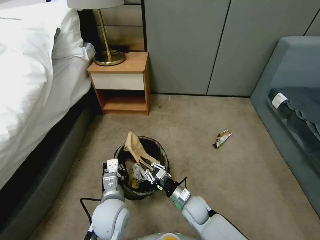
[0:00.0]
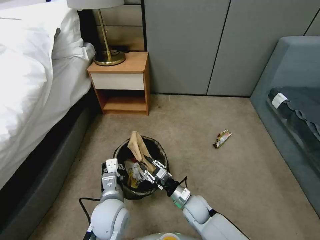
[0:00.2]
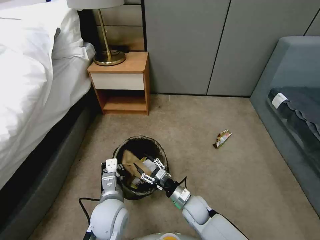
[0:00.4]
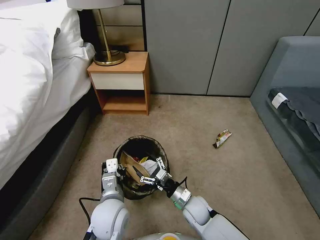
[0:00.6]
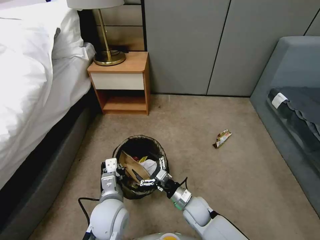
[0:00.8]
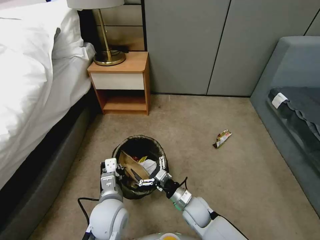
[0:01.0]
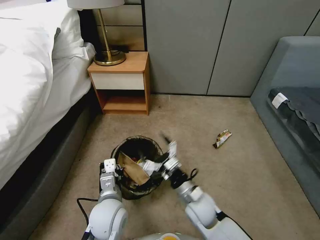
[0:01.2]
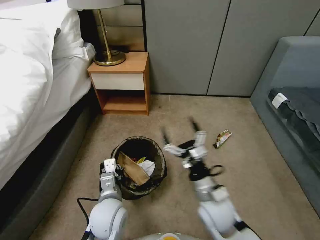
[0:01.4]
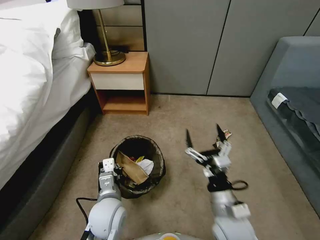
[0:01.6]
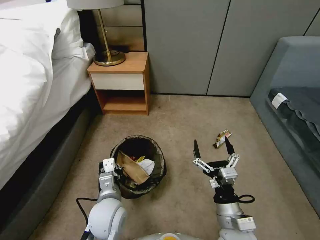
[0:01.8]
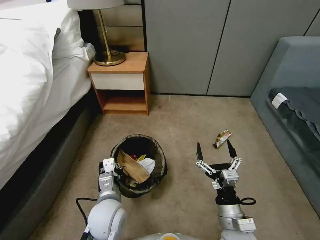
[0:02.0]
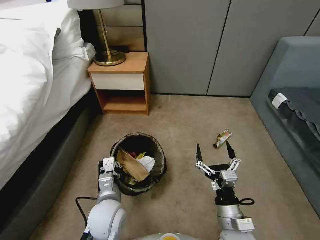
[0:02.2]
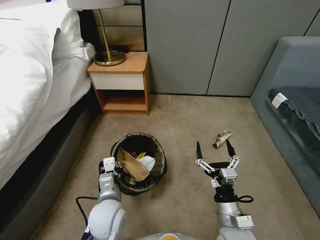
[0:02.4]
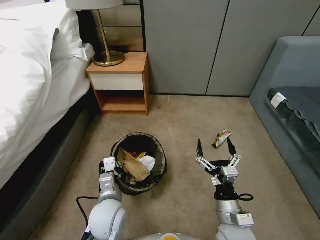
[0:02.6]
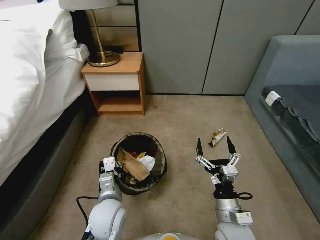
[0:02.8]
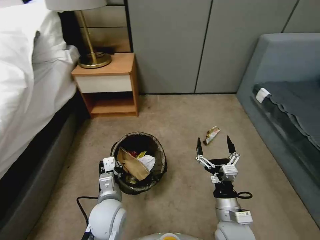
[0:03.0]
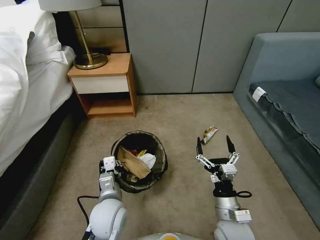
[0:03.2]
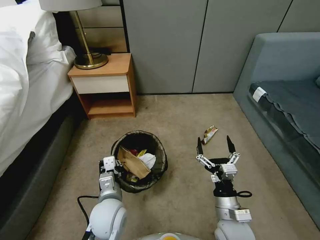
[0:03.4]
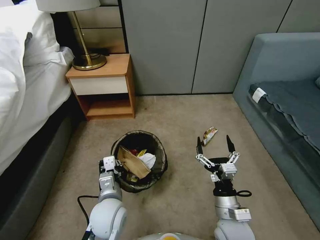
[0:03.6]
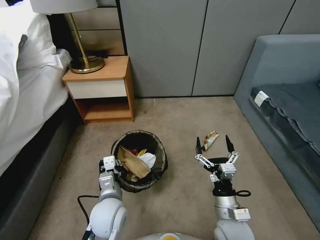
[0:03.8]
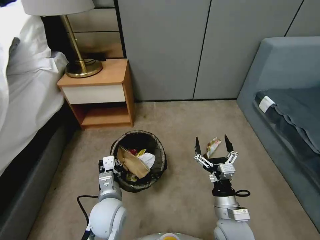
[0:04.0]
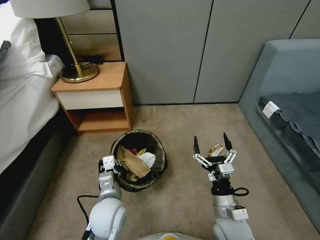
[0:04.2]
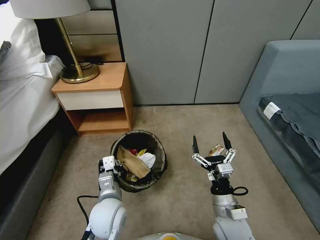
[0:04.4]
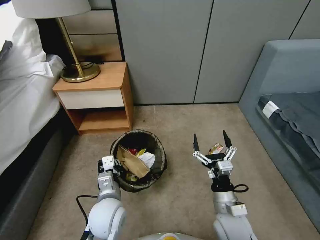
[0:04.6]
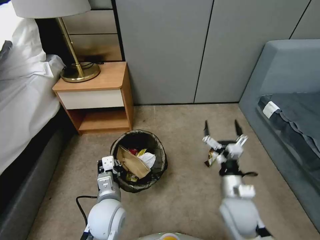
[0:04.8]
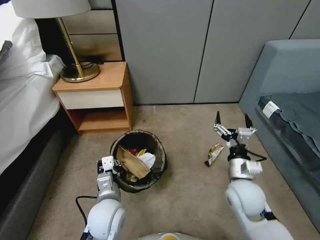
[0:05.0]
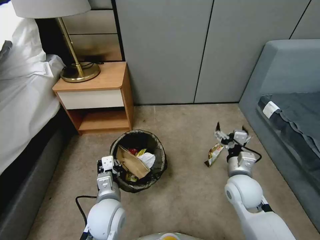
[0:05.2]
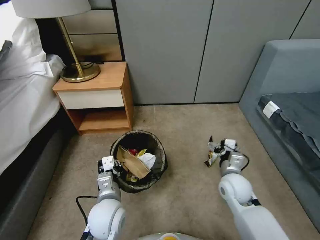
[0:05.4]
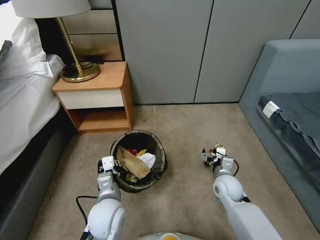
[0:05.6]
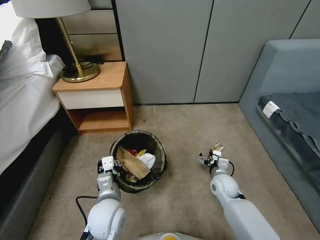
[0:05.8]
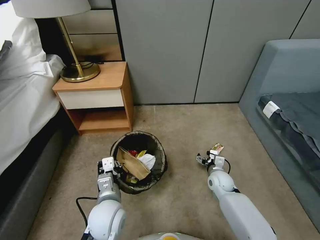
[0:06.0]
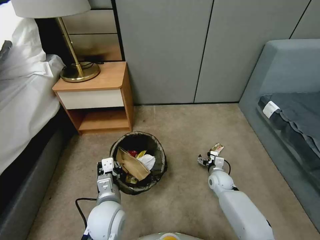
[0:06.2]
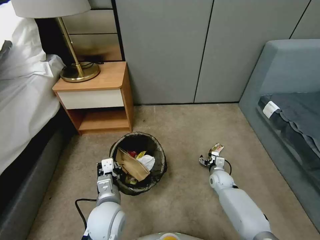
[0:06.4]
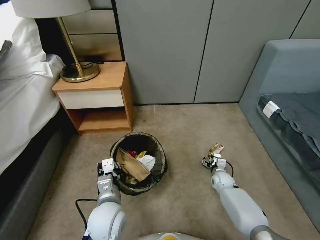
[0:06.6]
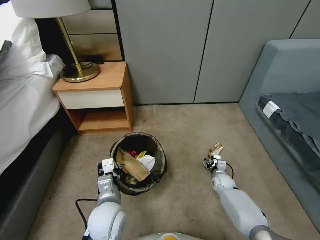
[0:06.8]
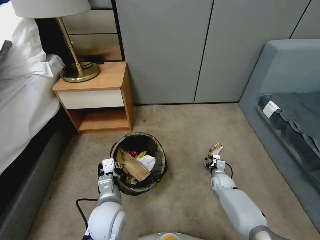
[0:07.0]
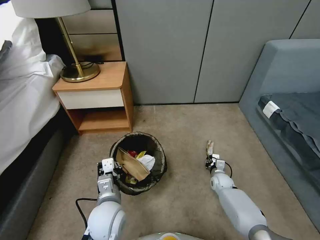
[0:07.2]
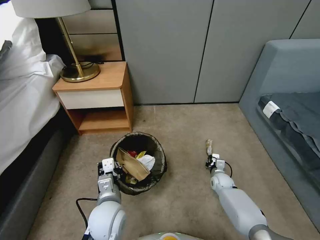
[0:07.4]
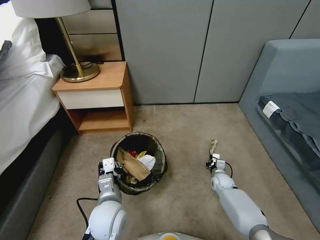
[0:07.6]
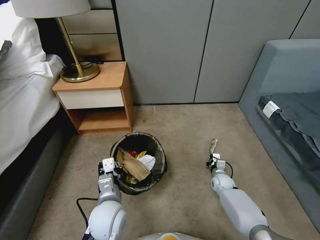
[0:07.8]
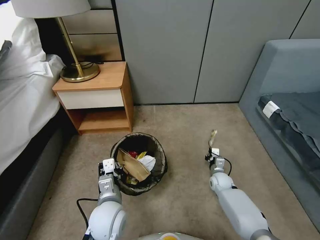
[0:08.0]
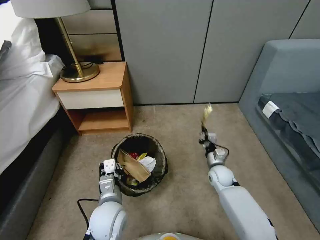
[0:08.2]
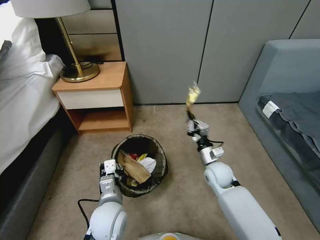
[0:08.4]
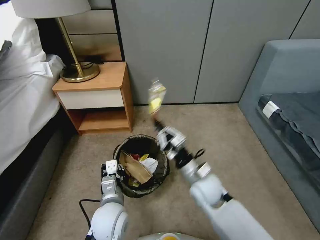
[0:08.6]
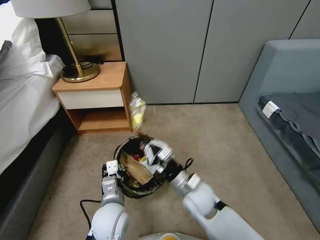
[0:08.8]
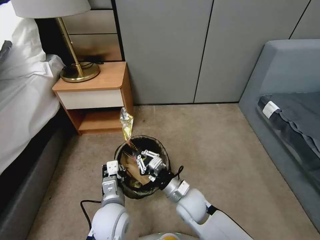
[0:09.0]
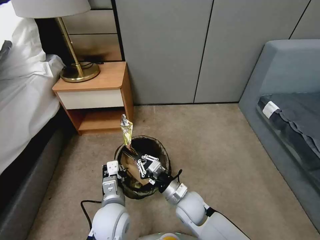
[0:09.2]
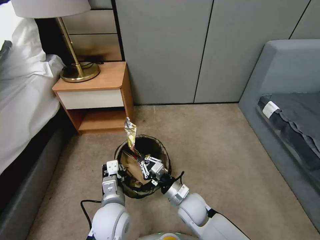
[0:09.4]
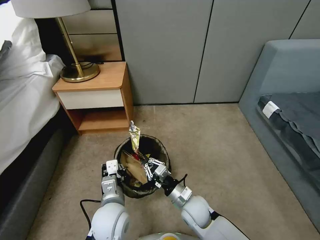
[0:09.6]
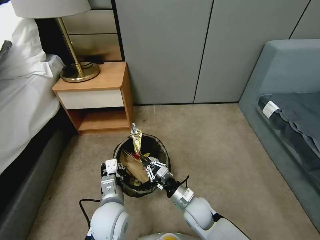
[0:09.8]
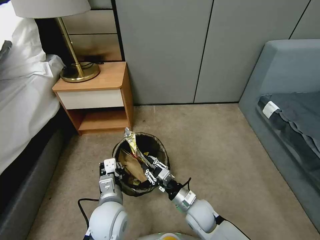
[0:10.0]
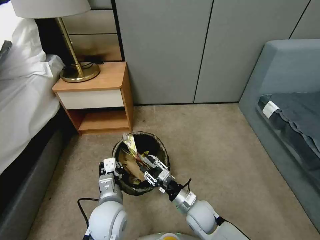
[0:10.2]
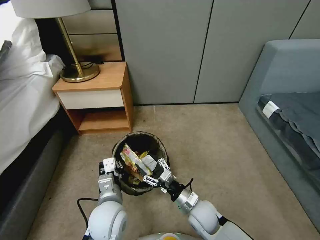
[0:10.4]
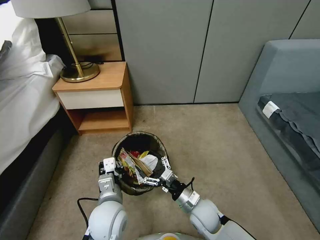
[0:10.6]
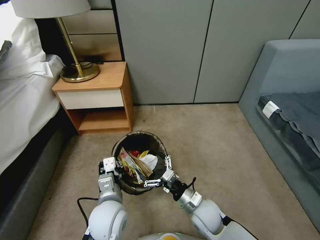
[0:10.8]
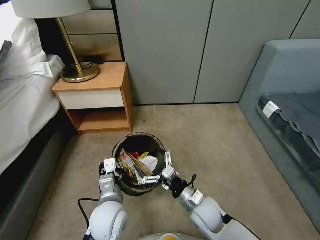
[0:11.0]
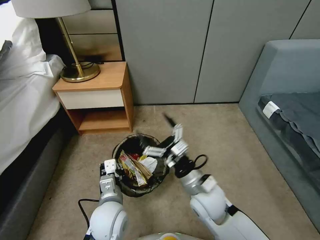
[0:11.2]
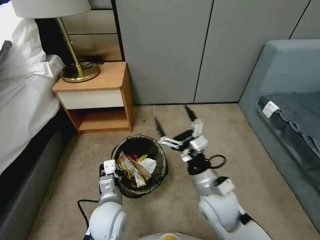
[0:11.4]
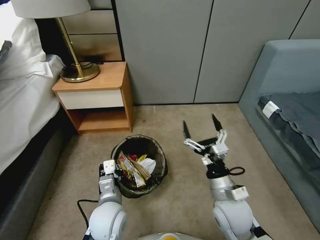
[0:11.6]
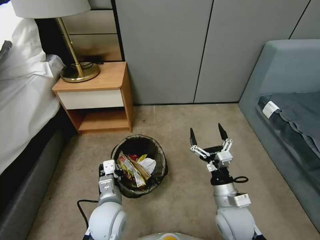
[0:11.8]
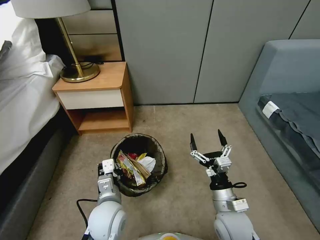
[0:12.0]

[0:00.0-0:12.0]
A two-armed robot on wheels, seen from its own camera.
Task of the whole recording: Pick up the trash bin, then pick up the garbage from the floor and place it into the trash bin.
0:00.0 to 0:01.6: The right gripper shifts some 20 cm upward and backward, and opens.
0:04.4 to 0:06.0: The right gripper shifts roughly 20 cm forward and downward.
0:06.0 to 0:07.6: The right gripper goes roughly 10 cm downward, and closes up.
0:07.6 to 0:09.0: The right gripper is displaced to the left, upward and backward by approximately 30 cm.
0:09.0 to 0:10.4: The right gripper travels downward by approximately 5 cm, and opens its fingers.
0:10.4 to 0:12.0: The right gripper shifts approximately 10 cm upward and to the right, and opens its fingers.

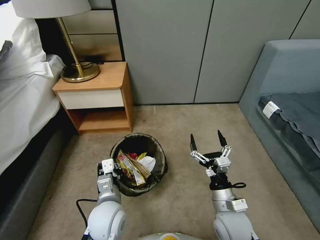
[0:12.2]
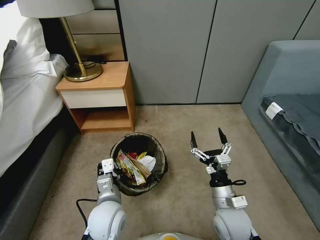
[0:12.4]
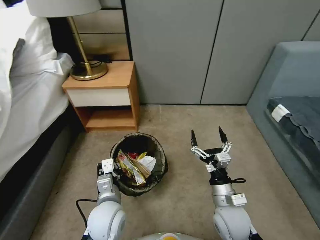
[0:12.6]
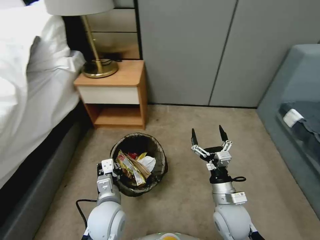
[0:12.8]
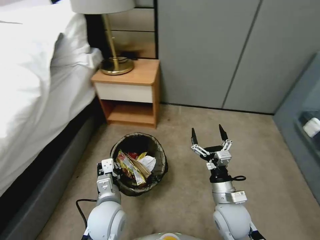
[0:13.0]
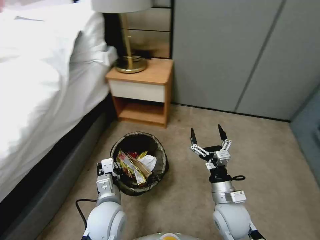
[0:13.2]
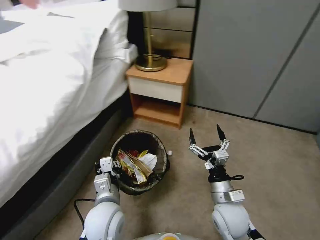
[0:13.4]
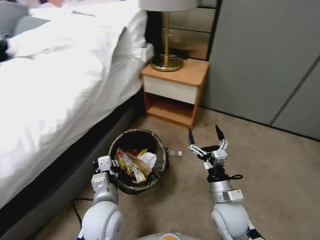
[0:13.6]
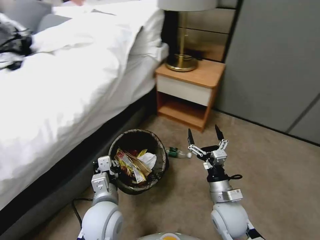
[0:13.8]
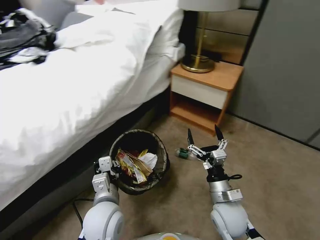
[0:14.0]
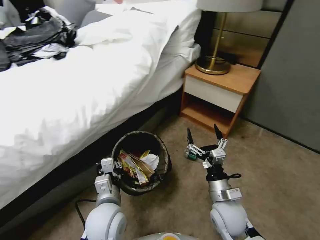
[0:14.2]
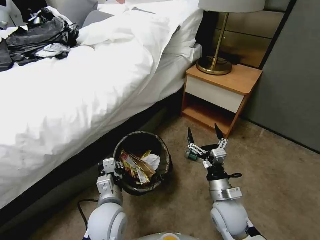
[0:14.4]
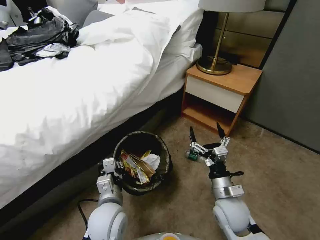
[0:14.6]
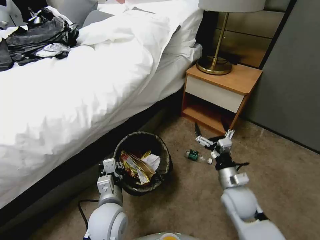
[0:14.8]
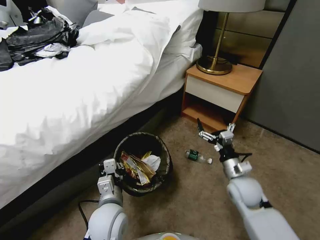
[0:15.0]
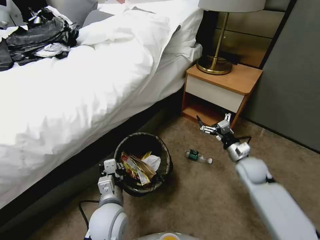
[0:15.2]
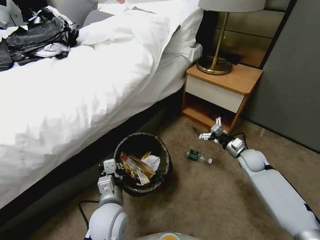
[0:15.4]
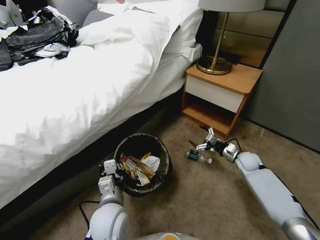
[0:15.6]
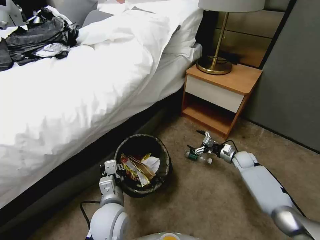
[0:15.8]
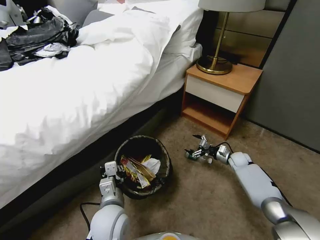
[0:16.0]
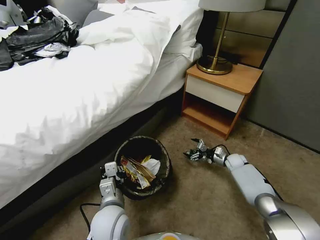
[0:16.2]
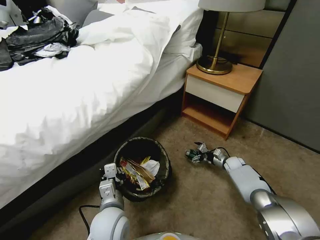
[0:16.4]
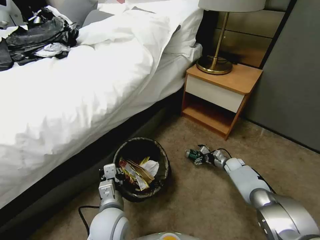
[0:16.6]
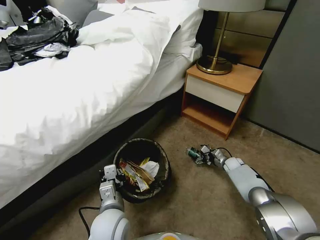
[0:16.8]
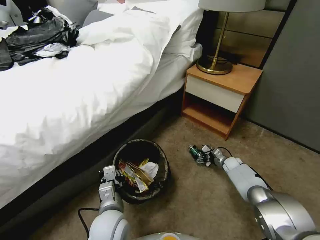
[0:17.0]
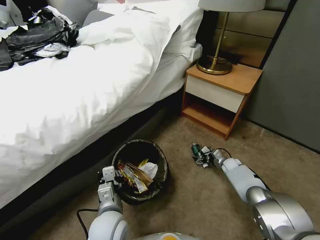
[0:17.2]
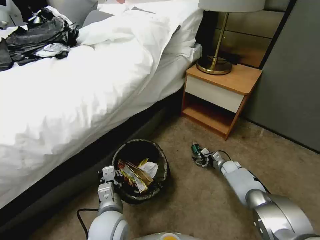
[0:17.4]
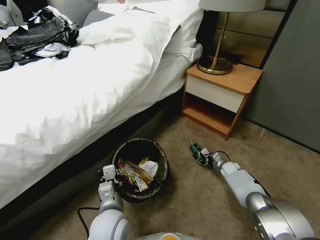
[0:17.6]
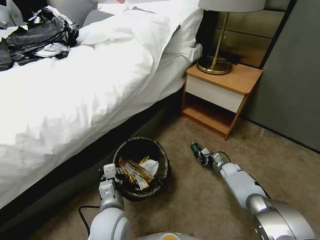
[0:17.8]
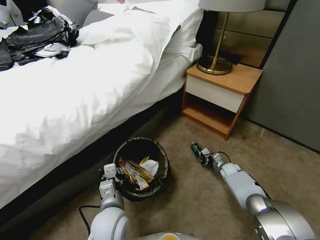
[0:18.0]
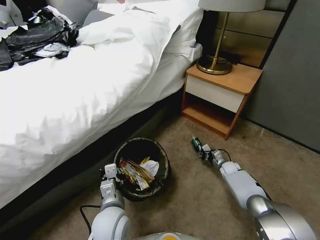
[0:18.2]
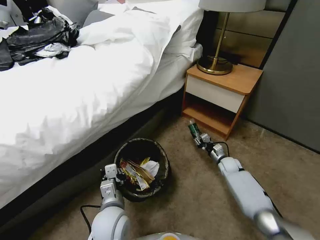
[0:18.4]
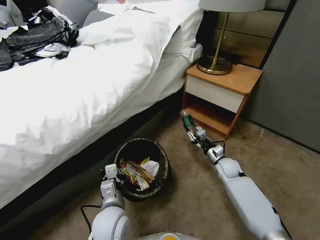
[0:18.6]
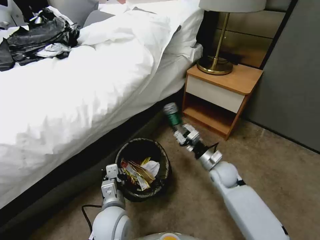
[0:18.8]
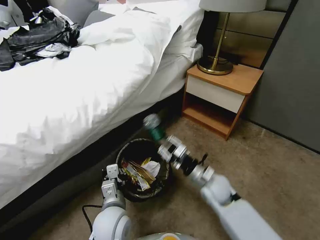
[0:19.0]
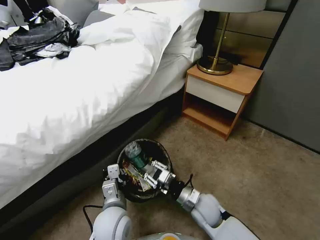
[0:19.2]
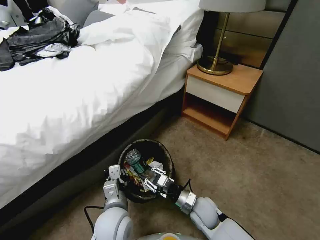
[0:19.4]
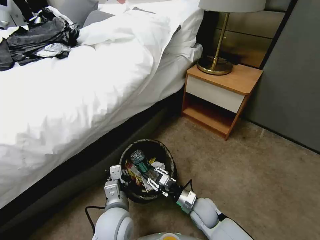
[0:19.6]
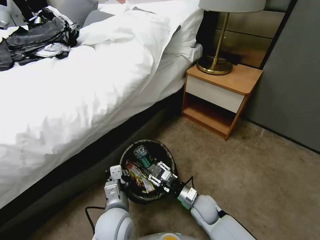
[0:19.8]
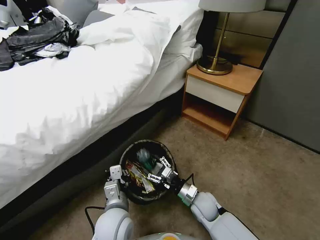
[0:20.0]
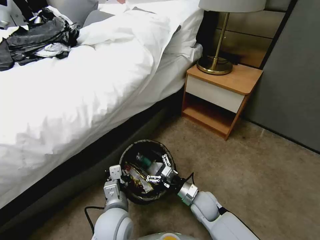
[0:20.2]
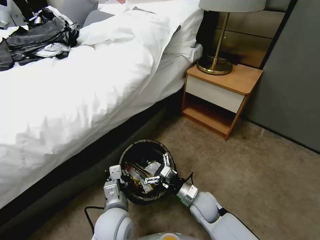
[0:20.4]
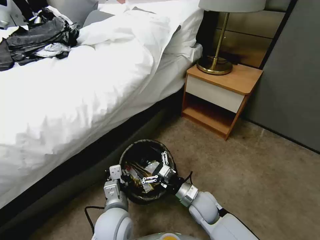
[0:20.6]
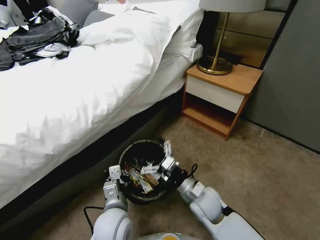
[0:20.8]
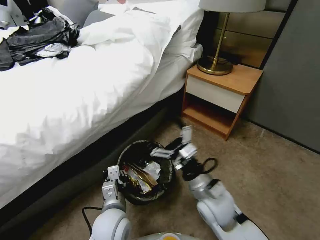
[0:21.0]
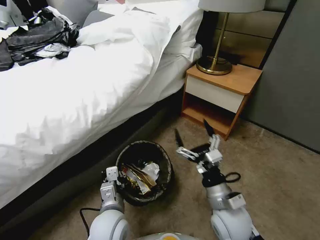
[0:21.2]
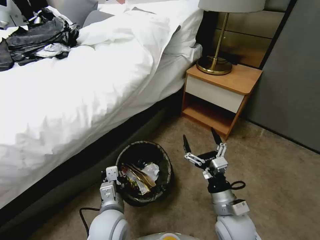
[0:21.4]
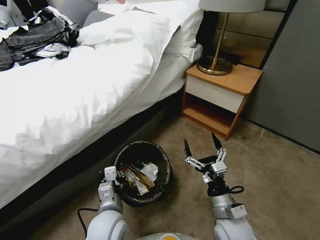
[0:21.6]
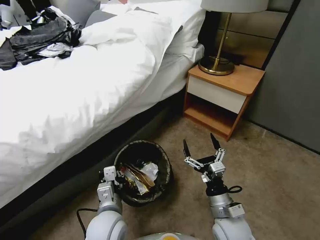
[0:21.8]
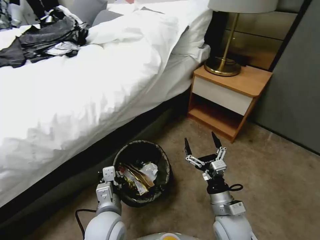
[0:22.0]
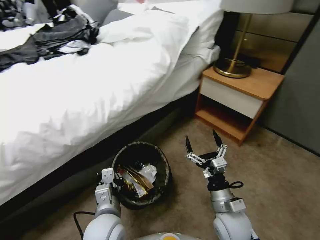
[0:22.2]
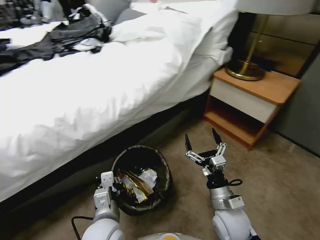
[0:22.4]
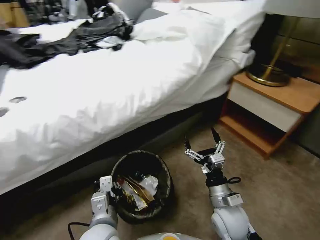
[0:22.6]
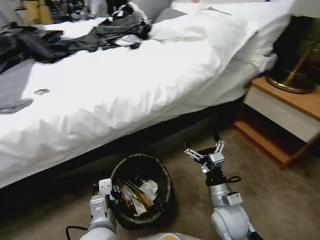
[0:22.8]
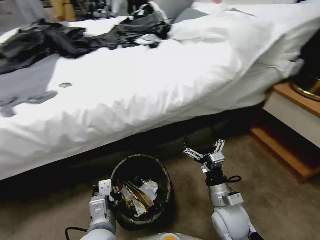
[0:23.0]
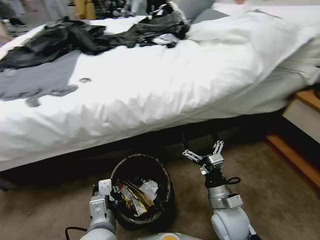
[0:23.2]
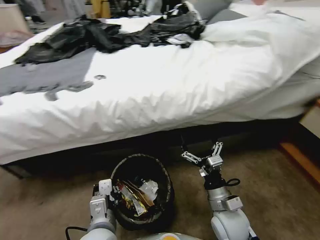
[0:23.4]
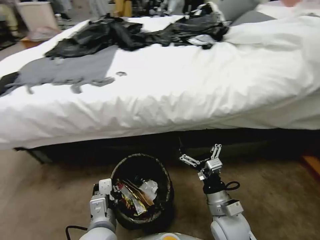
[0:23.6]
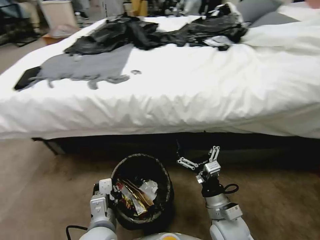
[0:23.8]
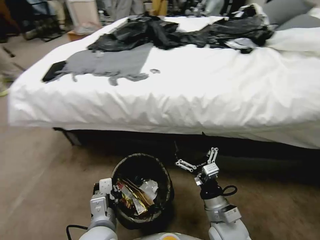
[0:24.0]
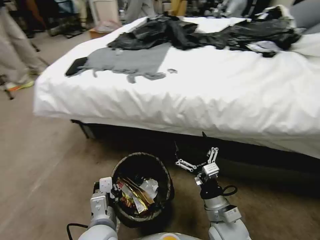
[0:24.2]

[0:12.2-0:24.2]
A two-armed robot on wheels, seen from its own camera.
Task of the whole recording: Pick up the trash bin, then pick up the garbage from the floor and place it into the trash bin.
0:13.8 to 0:15.2: The right gripper goes about 20 cm forward and to the right.
0:15.2 to 0:16.6: The right gripper goes some 20 cm downward and forward.
0:16.6 to 0:18.2: The right gripper closes up.
0:18.2 to 0:19.8: The right gripper is displaced to the left, backward and upward by approximately 30 cm.
0:19.8 to 0:21.2: The right gripper goes approximately 15 cm upward, and opens its fingers.
0:21.2 to 0:22.6: The right gripper travels downward by approximately 5 cm, while the left gripper shifts by some 5 cm.
